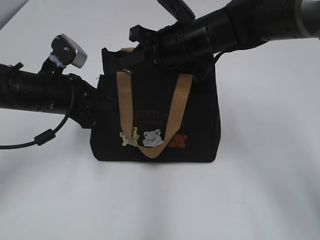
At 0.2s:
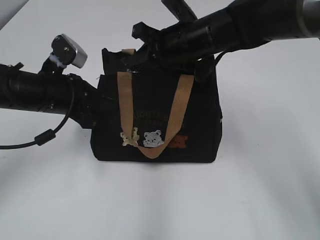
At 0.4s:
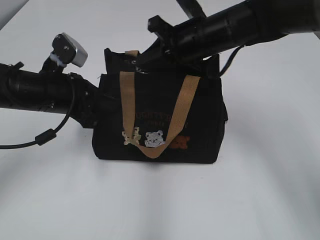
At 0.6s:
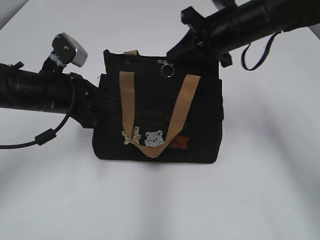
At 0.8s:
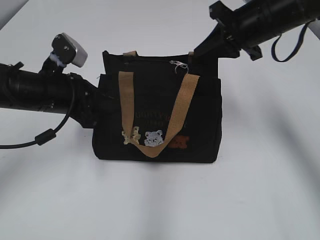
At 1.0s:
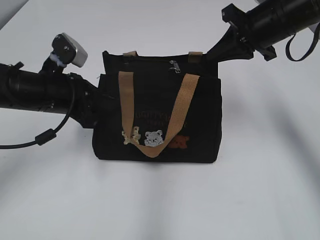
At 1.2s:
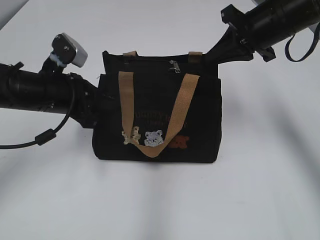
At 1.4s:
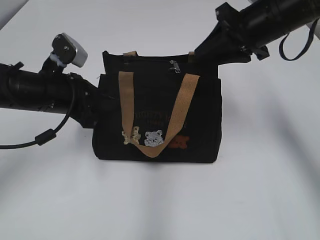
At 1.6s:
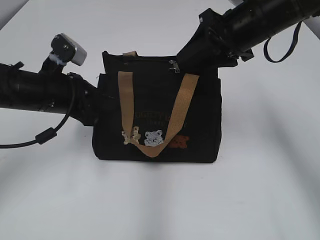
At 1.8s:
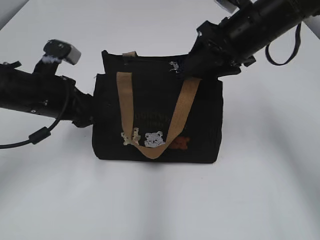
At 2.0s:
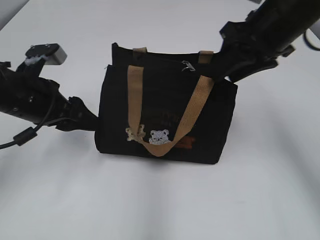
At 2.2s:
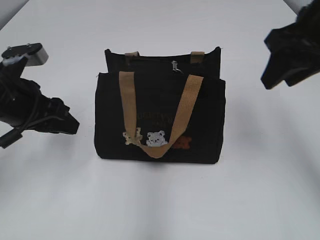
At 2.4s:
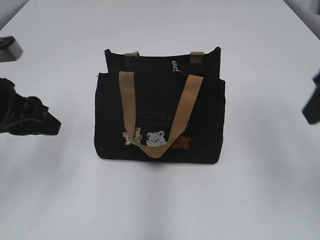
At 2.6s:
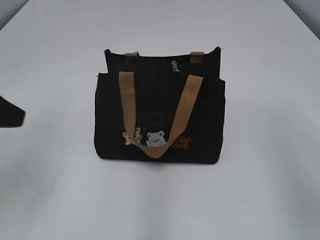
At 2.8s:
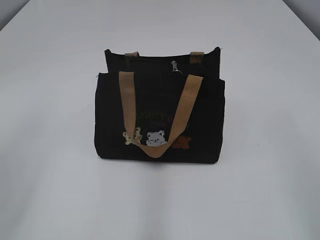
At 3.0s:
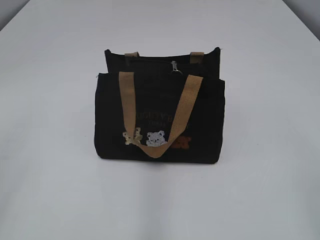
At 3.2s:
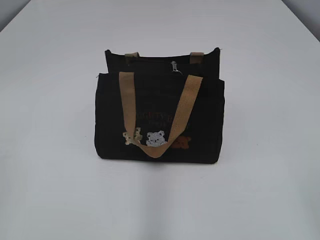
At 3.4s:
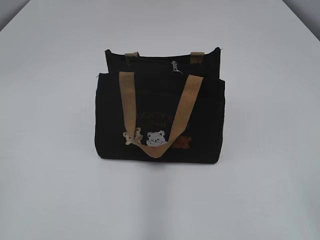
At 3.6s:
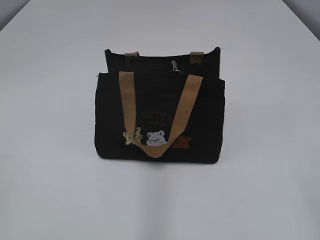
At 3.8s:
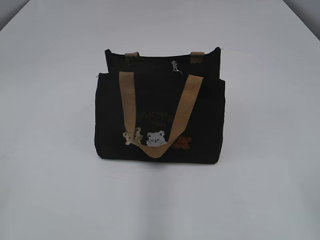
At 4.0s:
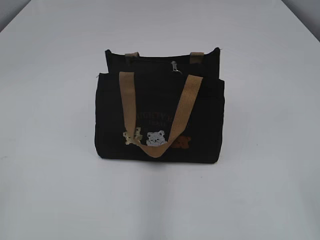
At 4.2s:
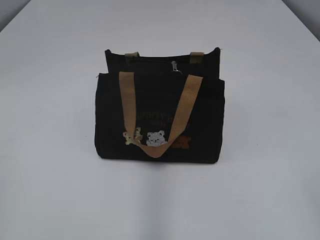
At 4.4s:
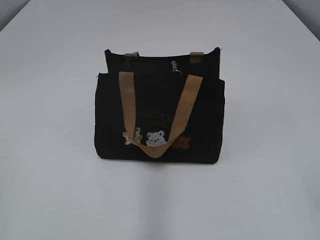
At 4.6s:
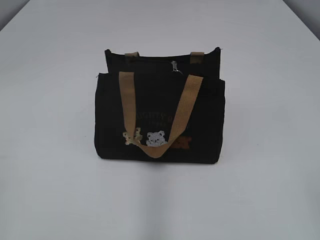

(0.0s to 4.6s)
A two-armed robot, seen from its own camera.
0.0s - 1.6s: The right gripper heads to the right and upward, covering approximately 10 cm, and opens up.
1.6s - 3.0s: The right gripper travels backward by approximately 35 cm. The left gripper heads backward, upward and to the left, covering about 30 cm, and opens its fingers.

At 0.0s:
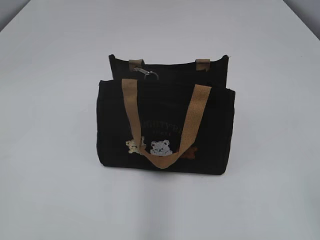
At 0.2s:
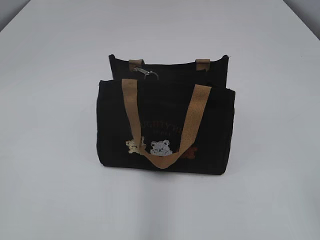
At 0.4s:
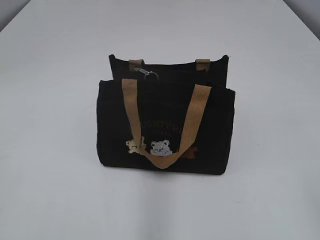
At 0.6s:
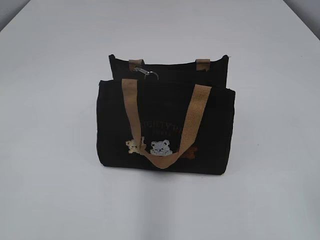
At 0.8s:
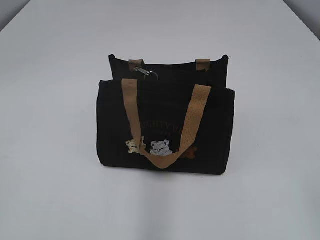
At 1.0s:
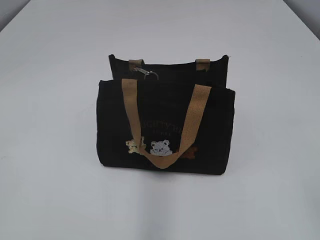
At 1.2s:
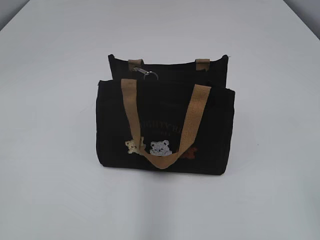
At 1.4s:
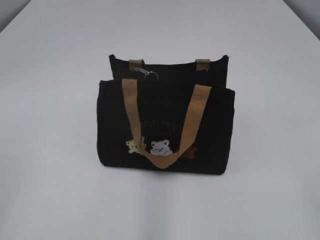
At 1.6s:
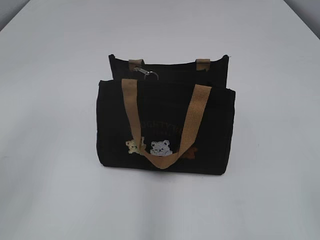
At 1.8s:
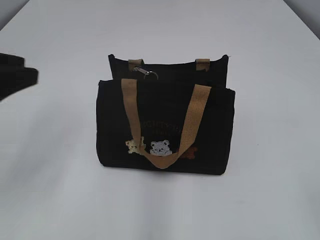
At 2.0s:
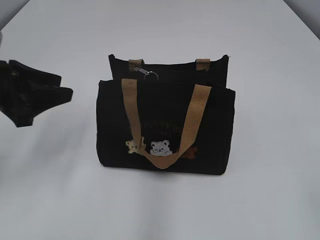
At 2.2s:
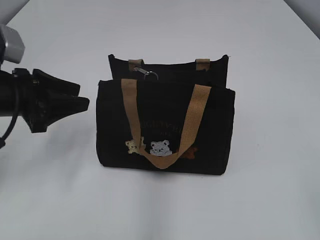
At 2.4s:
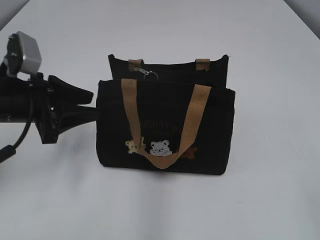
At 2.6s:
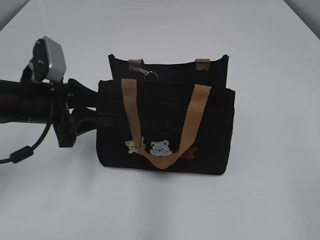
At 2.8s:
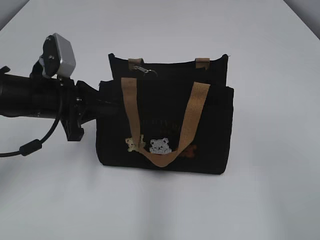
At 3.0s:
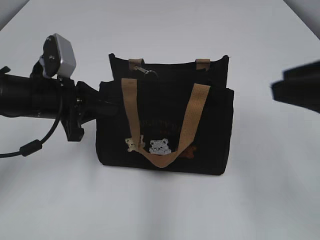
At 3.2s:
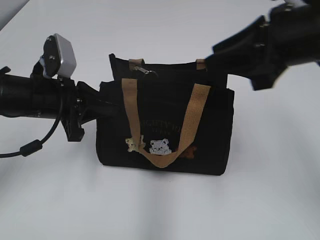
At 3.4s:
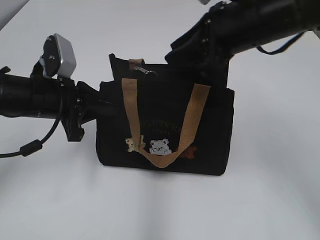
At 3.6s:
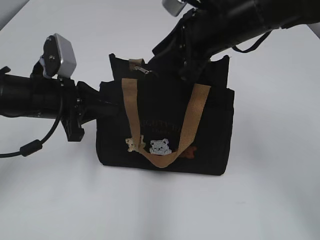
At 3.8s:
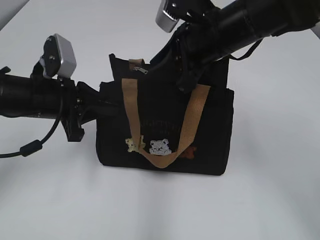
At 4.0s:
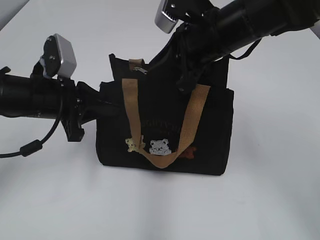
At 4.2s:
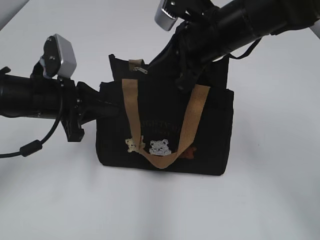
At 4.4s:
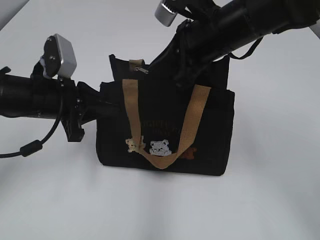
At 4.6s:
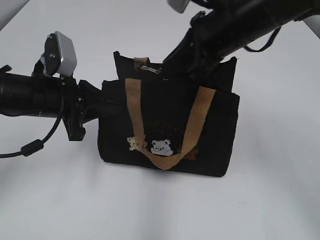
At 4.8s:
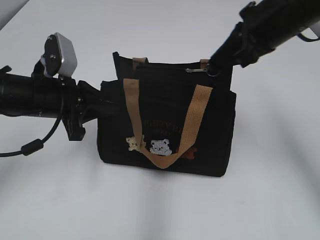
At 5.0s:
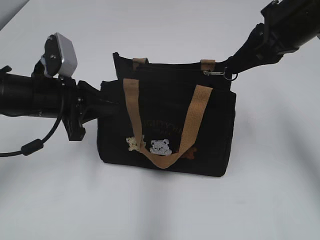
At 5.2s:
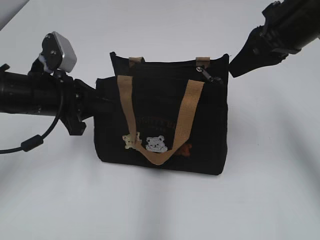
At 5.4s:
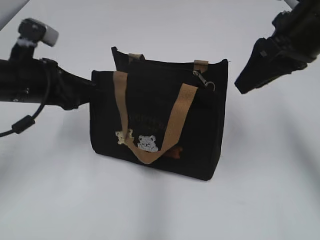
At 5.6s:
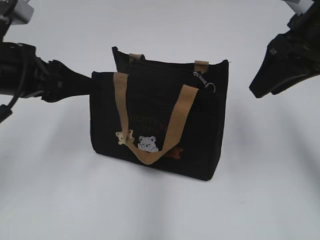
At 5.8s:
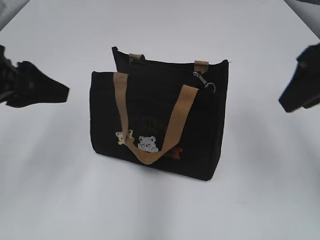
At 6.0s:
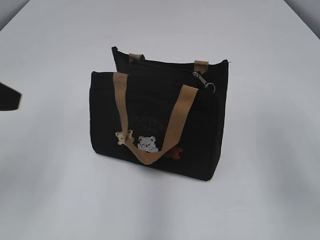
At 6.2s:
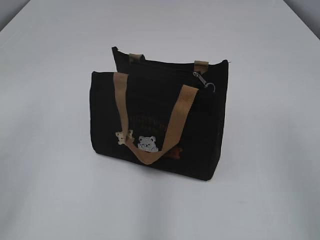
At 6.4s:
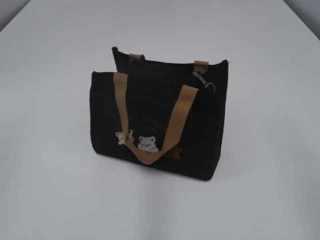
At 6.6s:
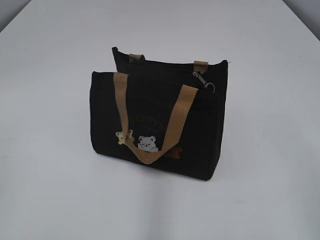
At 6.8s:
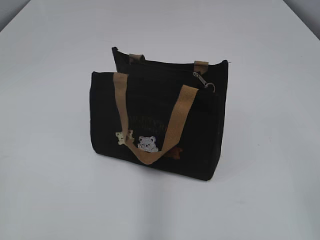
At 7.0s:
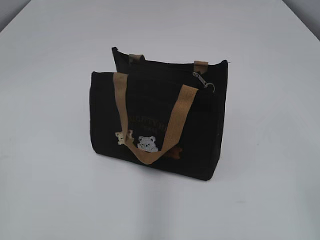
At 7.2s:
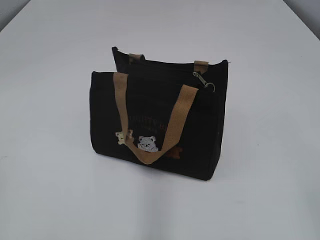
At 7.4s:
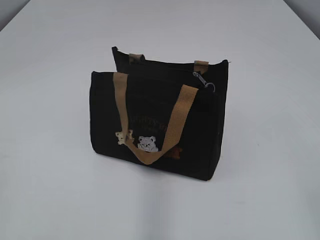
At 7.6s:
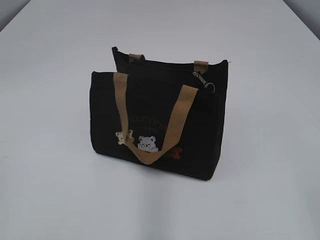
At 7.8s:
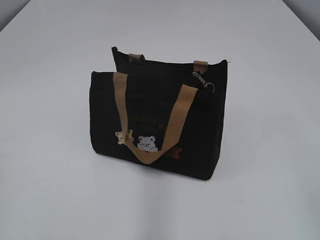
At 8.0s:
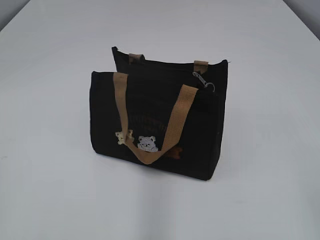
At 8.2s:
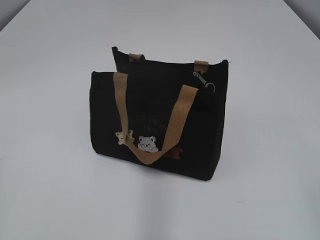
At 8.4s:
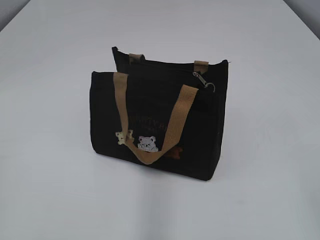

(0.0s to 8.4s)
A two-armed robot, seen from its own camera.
Step, 0.0s - 5.0s: Pull open the zipper with your right hand.
Step, 5.2s - 5.6s: Grab the zipper with your left hand.
1.4s - 2.8s: The right gripper moves forward, approximately 5 cm. The left gripper is displaced forward, to the right and downward by approximately 35 cm, and opens, then closes once more.
2.8s - 4.2s: The right gripper is displaced forward and to the left by approximately 35 cm, and closes up.
4.2s - 5.6s: The right gripper travels to the right by some 10 cm, and opens; the left gripper is displaced upward by some 5 cm, and opens up.
5.6s - 7.0s: The left gripper goes roughly 30 cm backward and to the left; the right gripper goes approximately 30 cm backward.

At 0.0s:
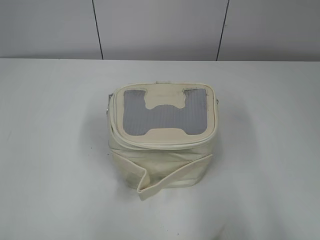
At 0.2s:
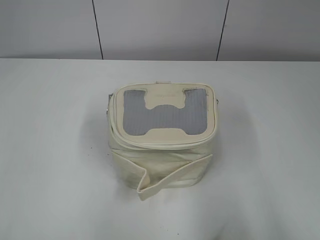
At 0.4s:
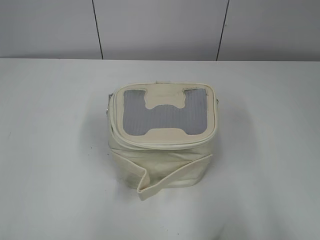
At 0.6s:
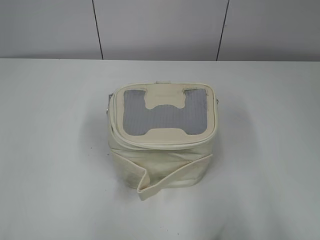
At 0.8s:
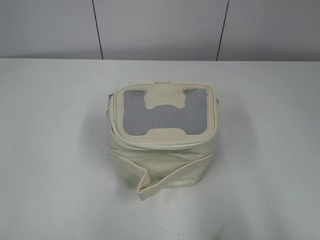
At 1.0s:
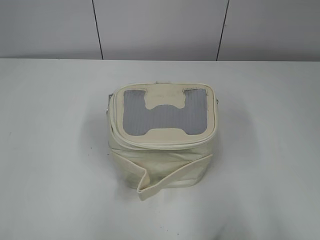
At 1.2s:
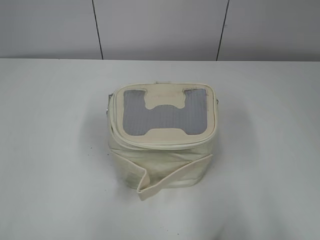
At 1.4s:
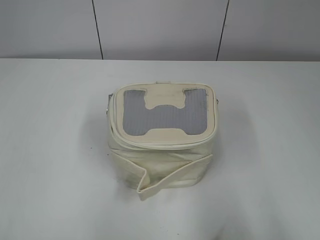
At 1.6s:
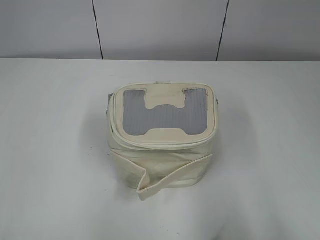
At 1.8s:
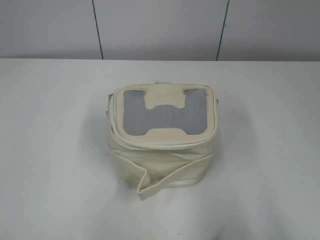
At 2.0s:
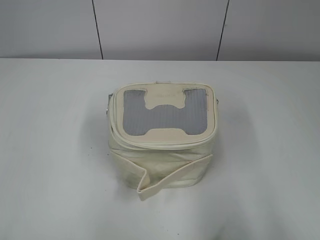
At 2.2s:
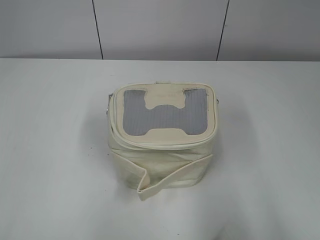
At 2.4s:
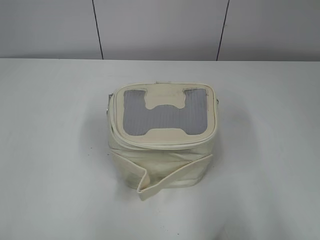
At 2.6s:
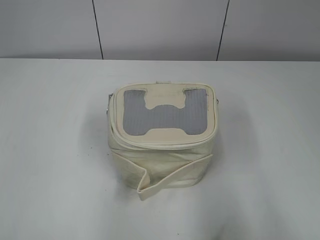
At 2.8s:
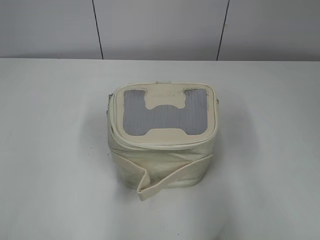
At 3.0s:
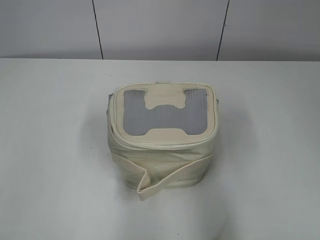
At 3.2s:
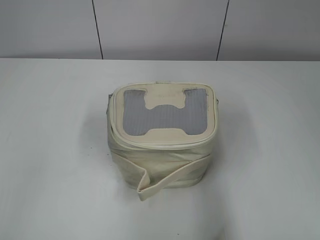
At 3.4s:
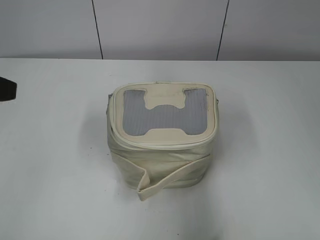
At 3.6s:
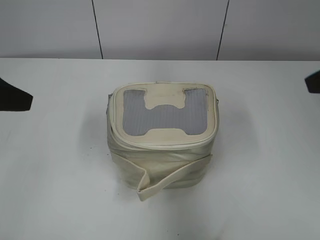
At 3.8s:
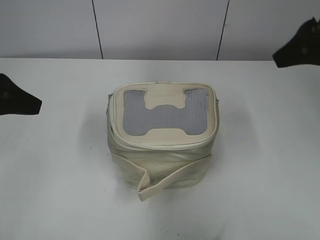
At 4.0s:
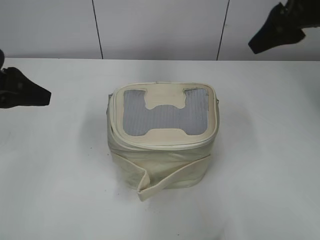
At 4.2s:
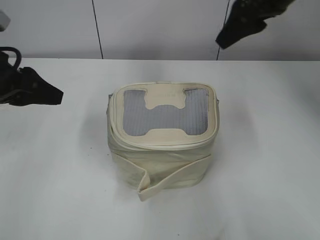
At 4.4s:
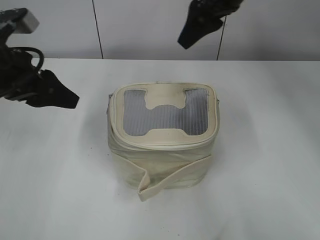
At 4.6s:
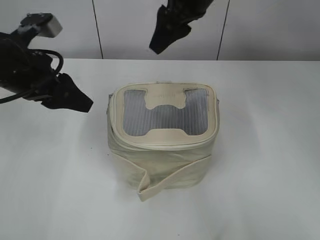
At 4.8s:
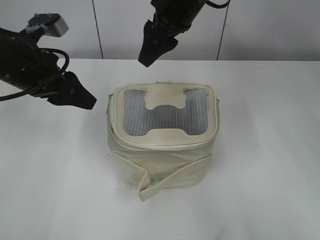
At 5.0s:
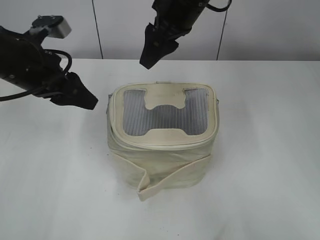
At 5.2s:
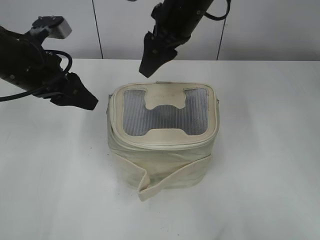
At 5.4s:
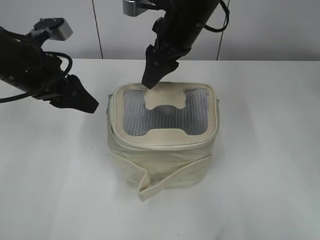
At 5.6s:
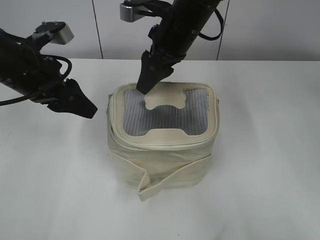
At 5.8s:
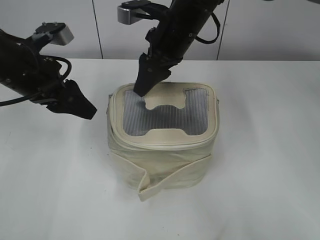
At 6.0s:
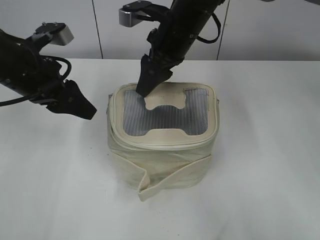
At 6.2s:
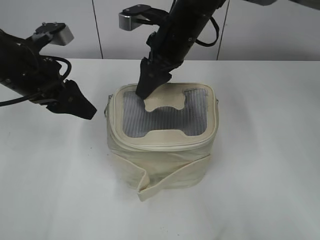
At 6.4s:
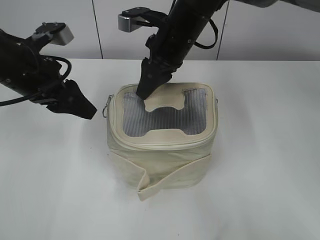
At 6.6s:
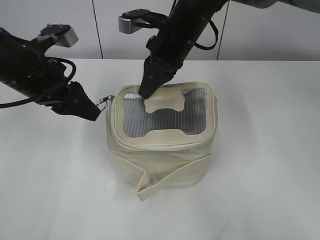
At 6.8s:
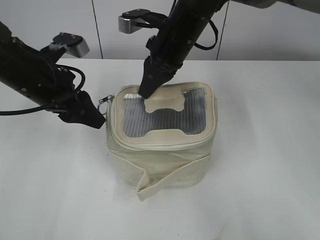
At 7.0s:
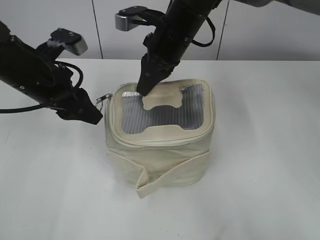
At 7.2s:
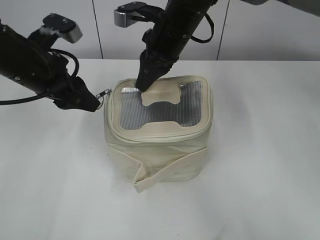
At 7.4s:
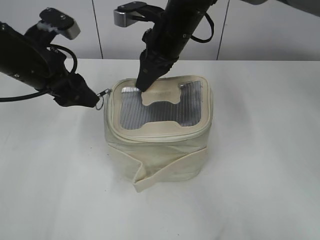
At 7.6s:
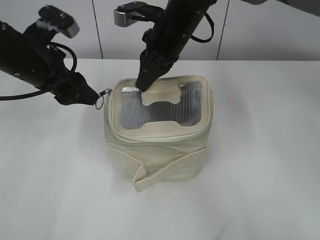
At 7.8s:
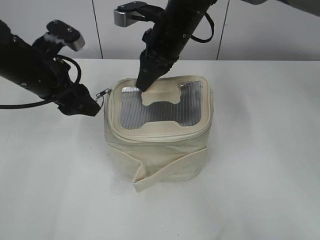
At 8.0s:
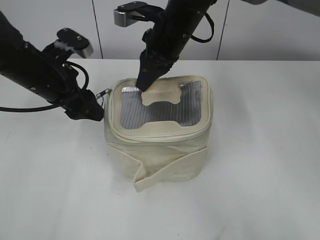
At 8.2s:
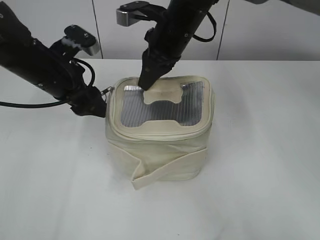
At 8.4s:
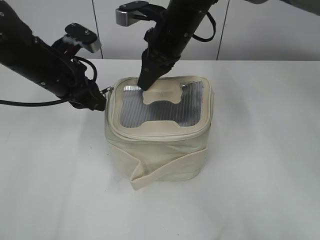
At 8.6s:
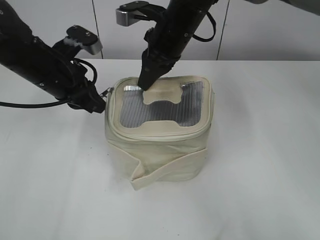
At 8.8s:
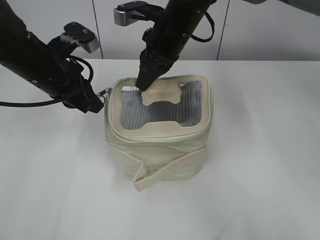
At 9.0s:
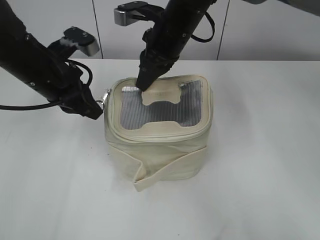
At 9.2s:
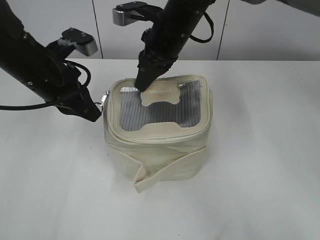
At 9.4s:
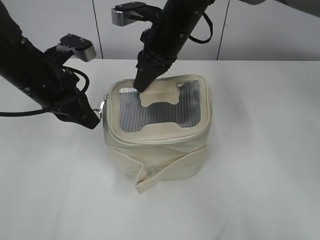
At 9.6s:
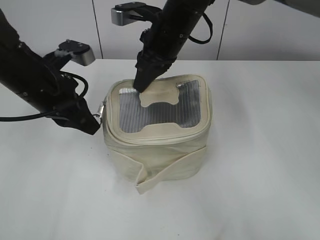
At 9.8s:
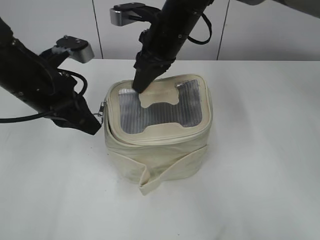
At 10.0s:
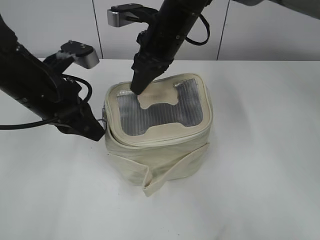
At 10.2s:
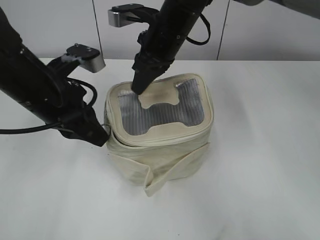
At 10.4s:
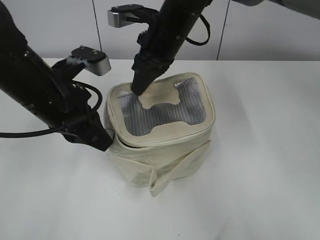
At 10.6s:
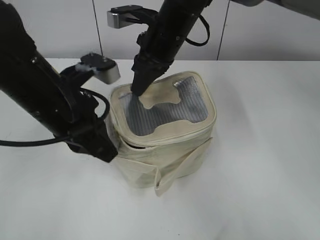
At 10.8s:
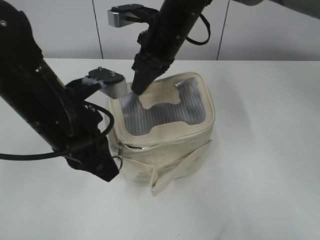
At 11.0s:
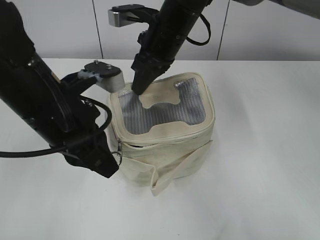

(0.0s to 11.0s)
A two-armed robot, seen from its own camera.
1.6s - 3.2s: Both grippers travel together forward, about 10 cm.
3.2s - 4.8s: The left gripper is displaced forward, to the right and downward by some 20 cm. Meanwhile the right gripper shifts approximately 40 cm forward and to the left.
4.8s - 6.2s: The right gripper goes about 5 cm downward.
6.2s - 7.8s: The right gripper closes.
7.8s - 9.4s: The left gripper closes up.
9.4s - 11.0s: The left gripper moves backward, roughly 10 cm.
